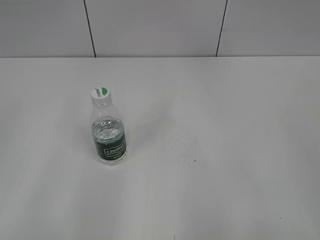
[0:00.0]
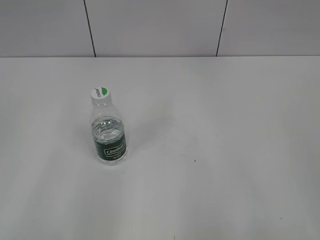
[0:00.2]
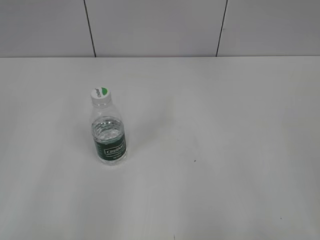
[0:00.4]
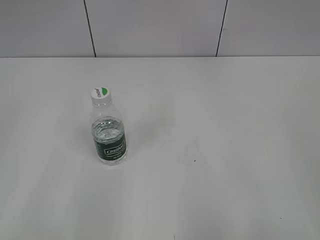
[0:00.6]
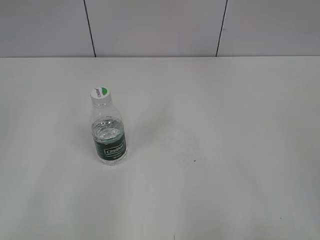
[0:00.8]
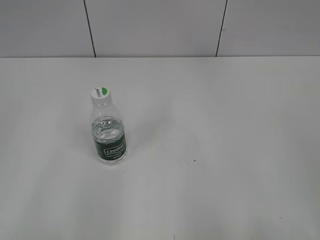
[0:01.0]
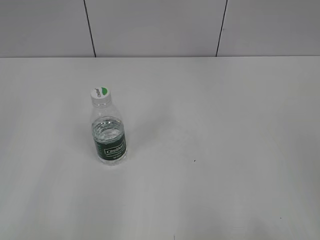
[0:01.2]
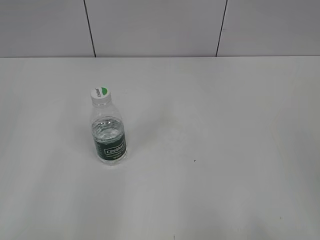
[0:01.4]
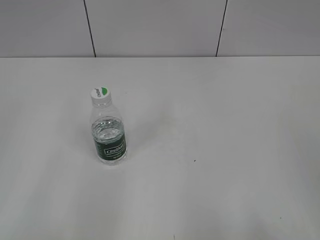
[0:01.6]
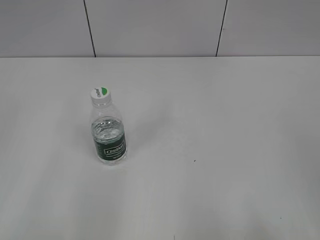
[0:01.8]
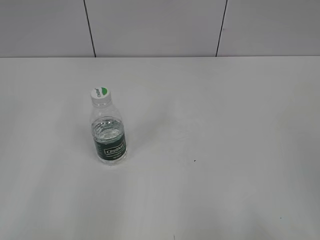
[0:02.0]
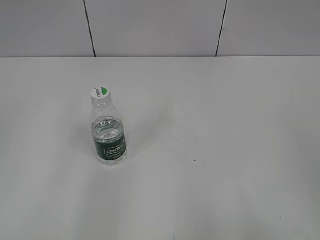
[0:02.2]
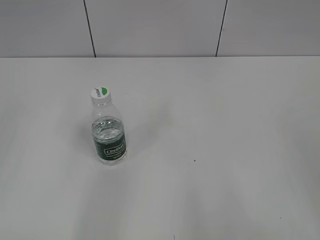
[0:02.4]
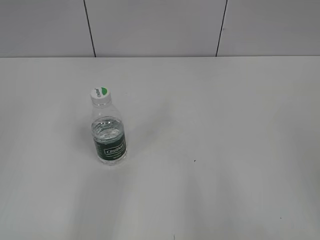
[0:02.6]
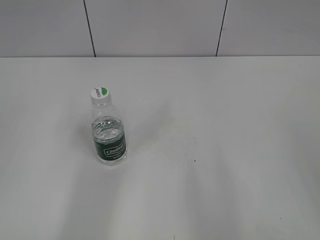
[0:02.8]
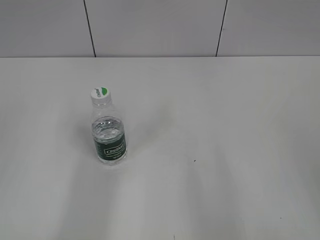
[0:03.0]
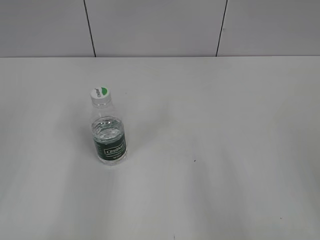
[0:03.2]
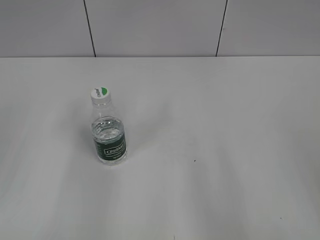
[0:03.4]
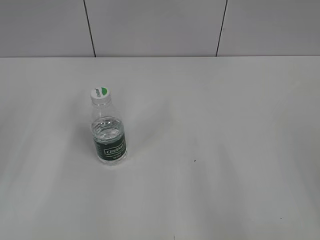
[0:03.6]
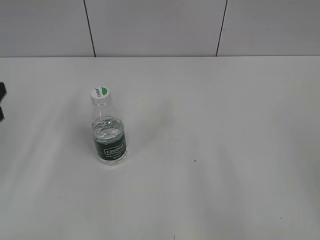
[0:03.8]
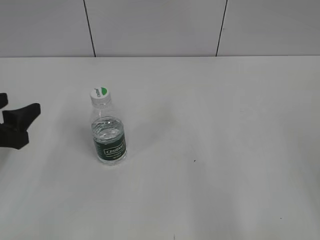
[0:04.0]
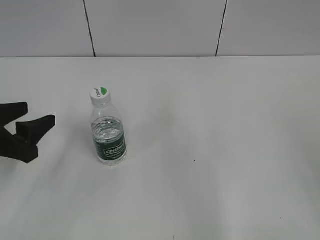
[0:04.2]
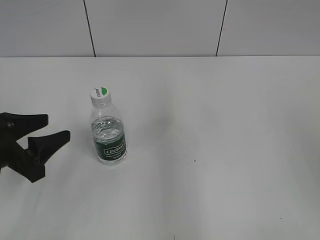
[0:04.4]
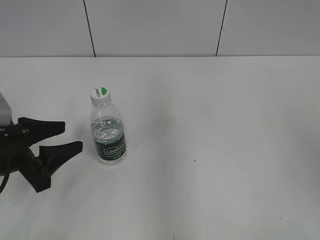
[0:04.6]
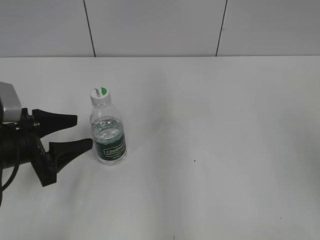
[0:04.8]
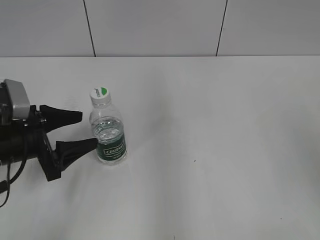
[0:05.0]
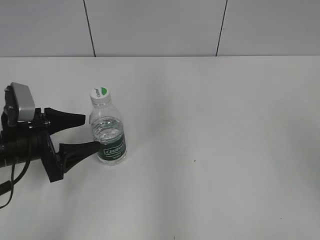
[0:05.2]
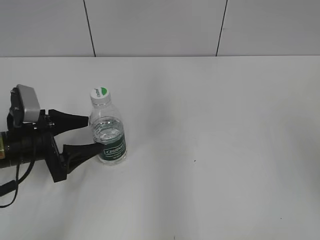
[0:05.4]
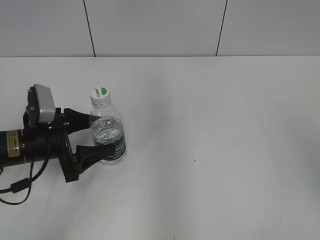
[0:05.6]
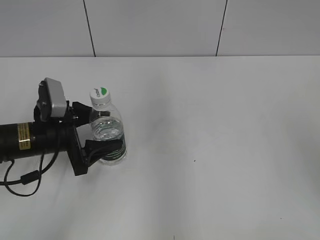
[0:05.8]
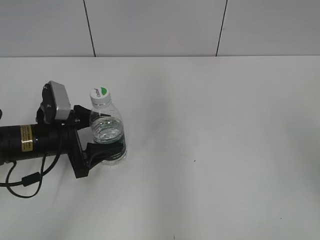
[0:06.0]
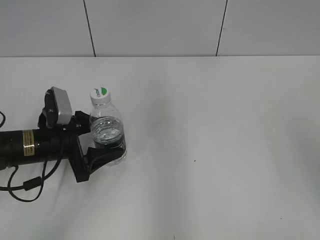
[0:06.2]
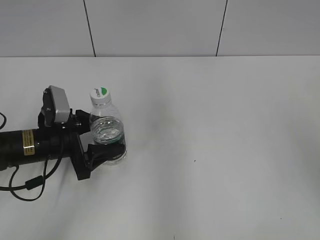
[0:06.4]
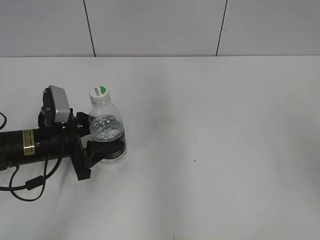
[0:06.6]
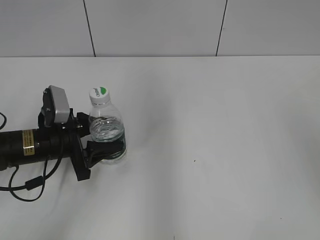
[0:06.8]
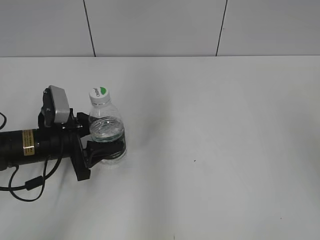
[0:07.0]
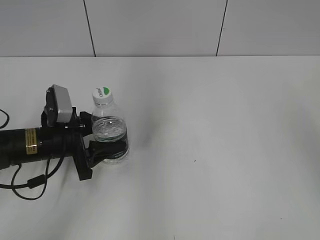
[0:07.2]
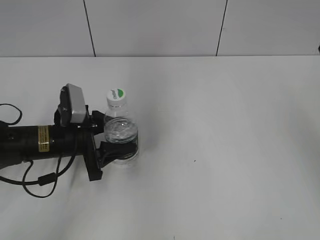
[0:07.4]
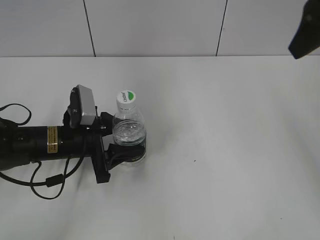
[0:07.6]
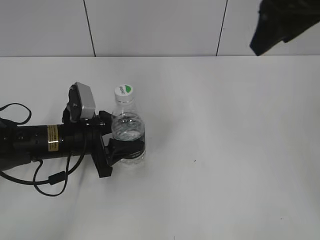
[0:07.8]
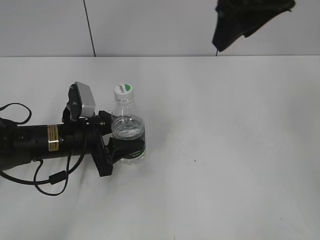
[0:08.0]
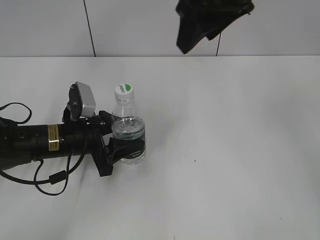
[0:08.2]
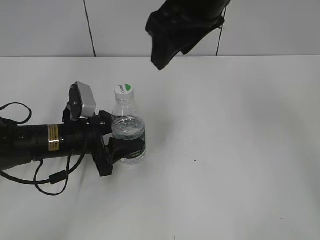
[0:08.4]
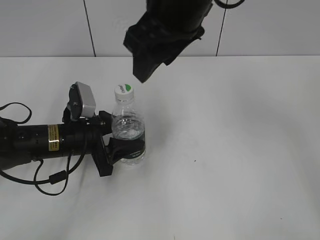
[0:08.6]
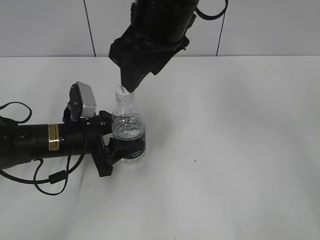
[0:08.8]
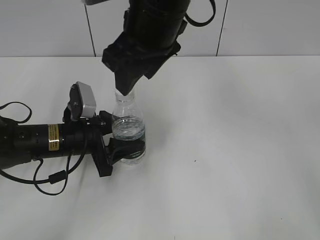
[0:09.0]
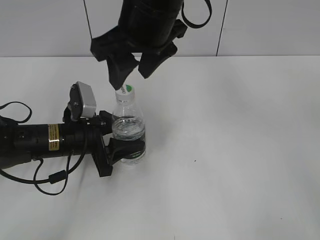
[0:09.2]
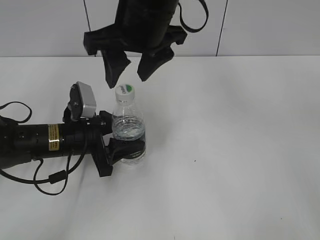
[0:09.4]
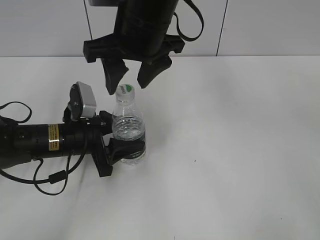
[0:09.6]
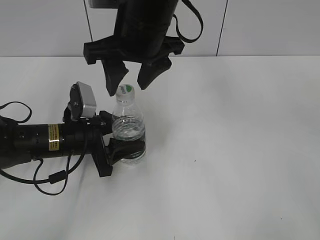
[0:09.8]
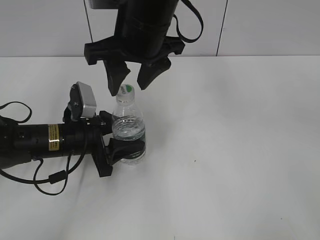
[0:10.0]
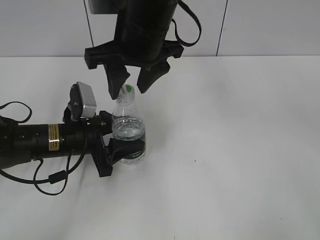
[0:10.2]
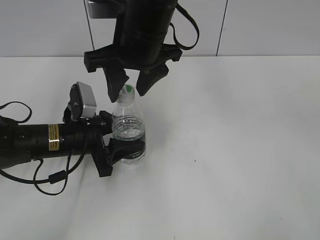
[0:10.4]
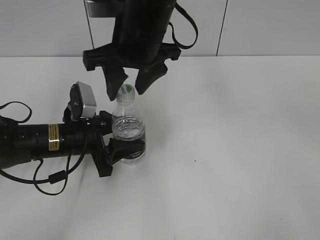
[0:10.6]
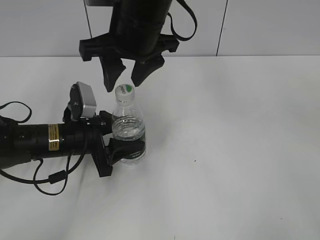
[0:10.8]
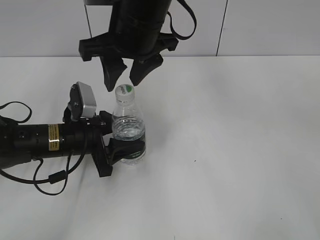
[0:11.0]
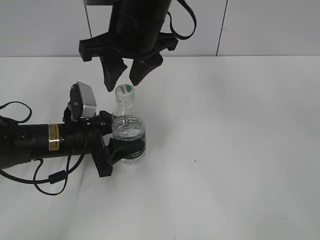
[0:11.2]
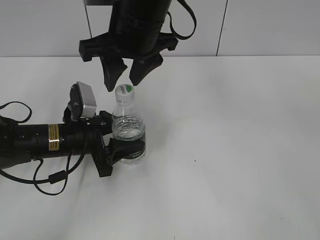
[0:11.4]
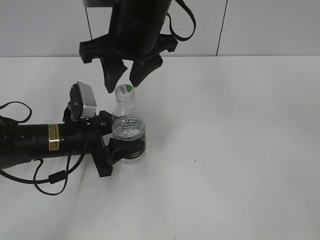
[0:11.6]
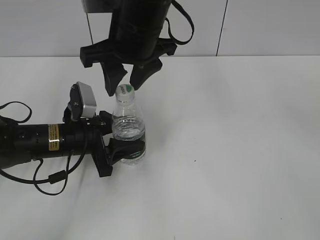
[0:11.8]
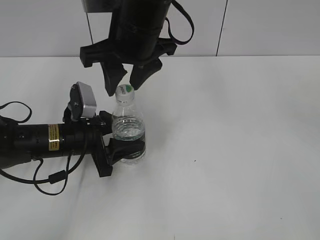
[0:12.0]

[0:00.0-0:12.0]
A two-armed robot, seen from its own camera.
Step, 0:00.0 to 0:06.8: Grasp the bottle and move it to the center of the table with the left gripper.
Step, 0:07.0 to 0:08.0: Lift the bottle and move it to the center of the table with the left gripper.
0:03.0 to 0:04.4: The left gripper heads downward and forward, covering roughly 20 cm. The right gripper goes roughly 10 cm forward.
0:04.4 to 0:06.0: The left gripper goes some 10 cm forward and to the right, and opens its fingers.
0:06.0 to 0:07.6: The right gripper moves forward and to the left, approximately 10 cm. The left gripper closes.
0:07.6 to 0:09.0: The right gripper travels to the left by roughly 20 cm.
0:10.4 to 0:12.0: Neither gripper changes place.

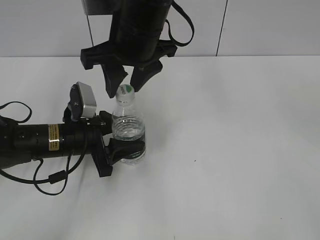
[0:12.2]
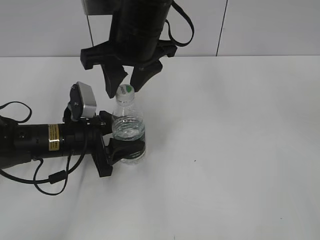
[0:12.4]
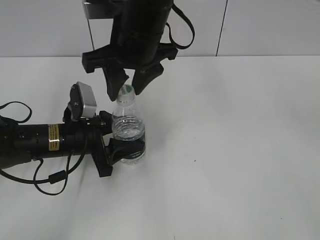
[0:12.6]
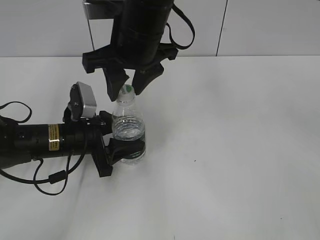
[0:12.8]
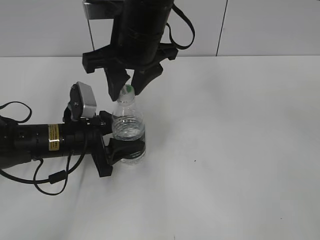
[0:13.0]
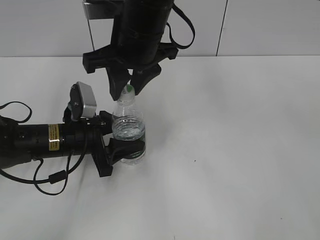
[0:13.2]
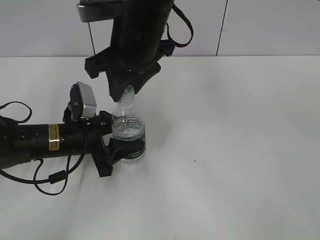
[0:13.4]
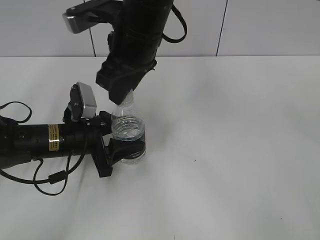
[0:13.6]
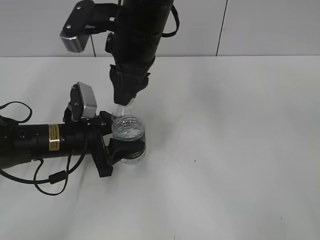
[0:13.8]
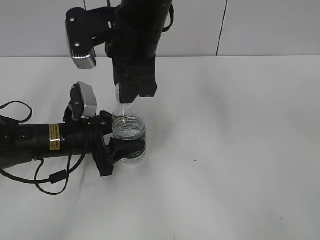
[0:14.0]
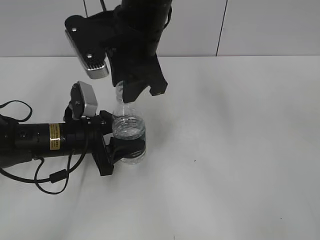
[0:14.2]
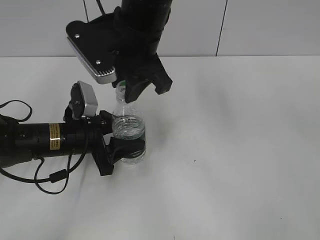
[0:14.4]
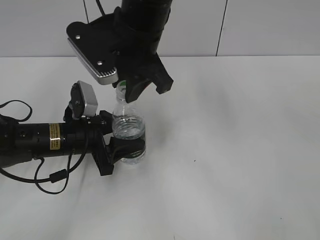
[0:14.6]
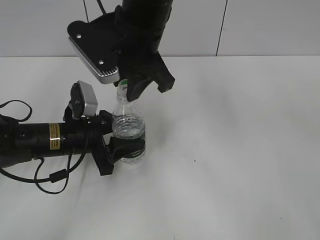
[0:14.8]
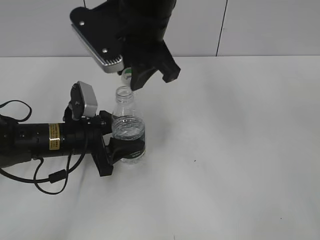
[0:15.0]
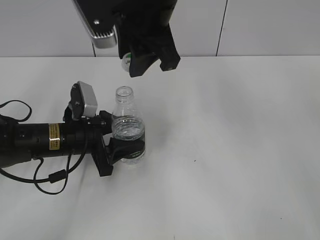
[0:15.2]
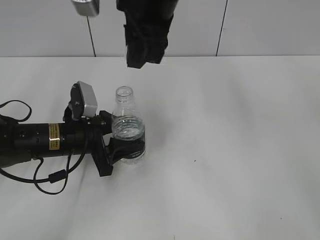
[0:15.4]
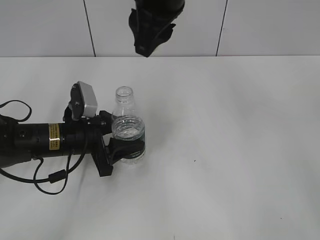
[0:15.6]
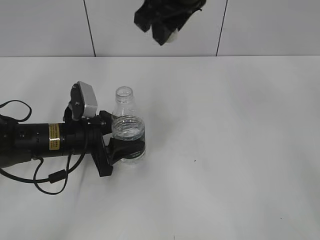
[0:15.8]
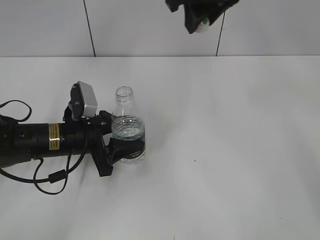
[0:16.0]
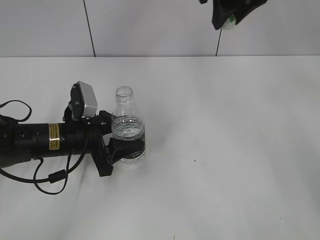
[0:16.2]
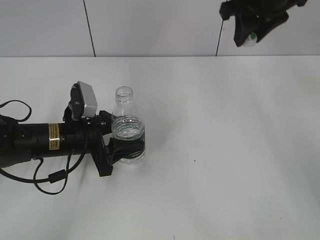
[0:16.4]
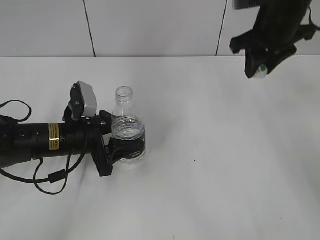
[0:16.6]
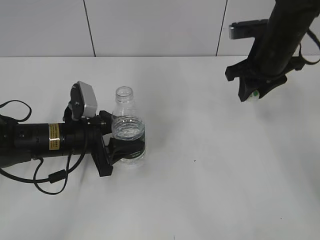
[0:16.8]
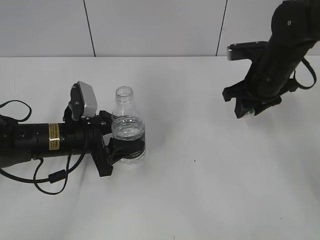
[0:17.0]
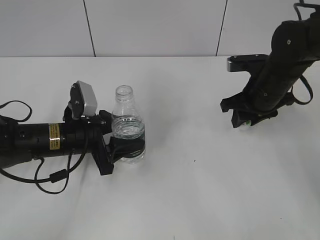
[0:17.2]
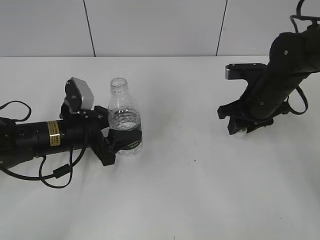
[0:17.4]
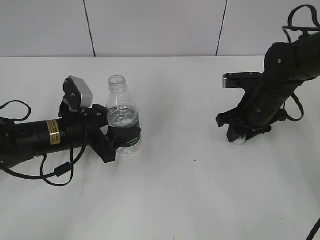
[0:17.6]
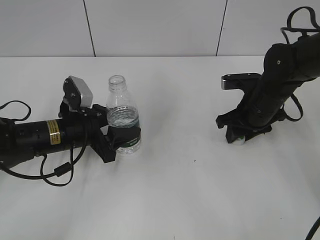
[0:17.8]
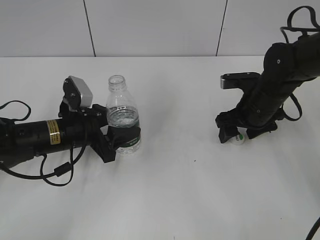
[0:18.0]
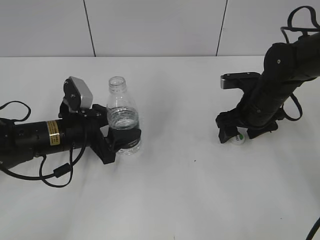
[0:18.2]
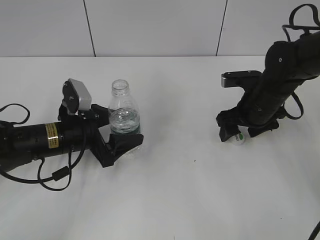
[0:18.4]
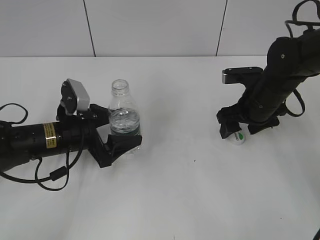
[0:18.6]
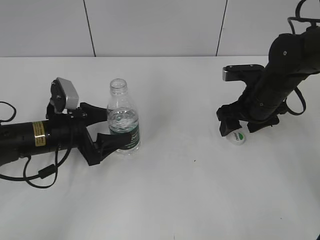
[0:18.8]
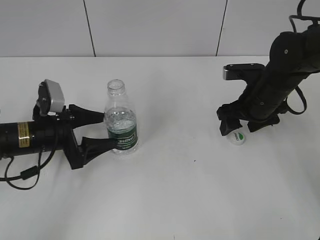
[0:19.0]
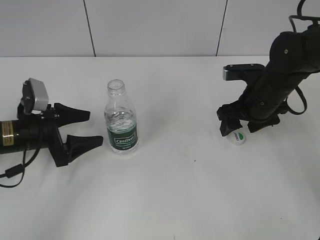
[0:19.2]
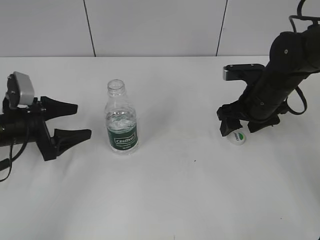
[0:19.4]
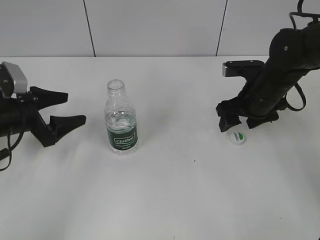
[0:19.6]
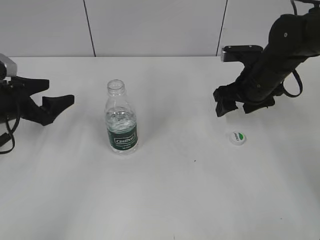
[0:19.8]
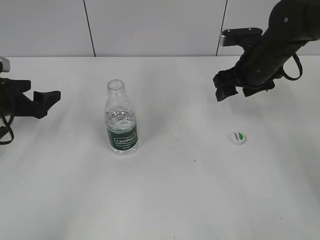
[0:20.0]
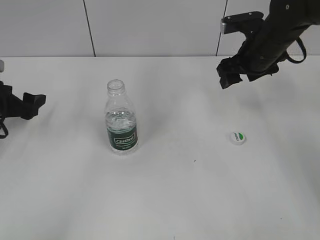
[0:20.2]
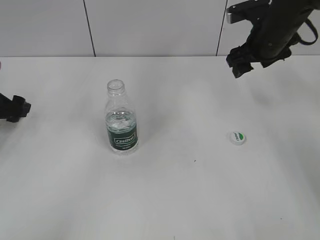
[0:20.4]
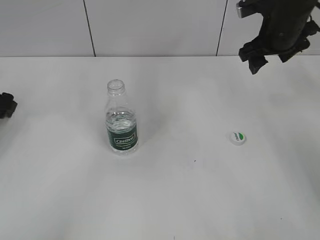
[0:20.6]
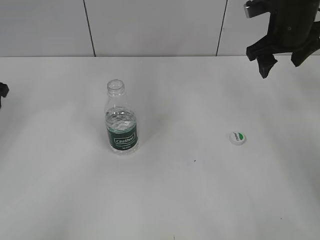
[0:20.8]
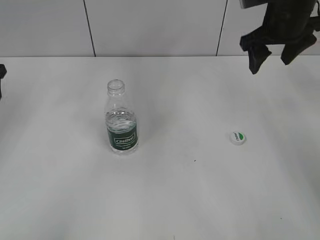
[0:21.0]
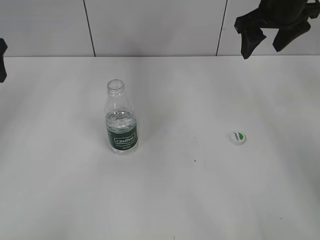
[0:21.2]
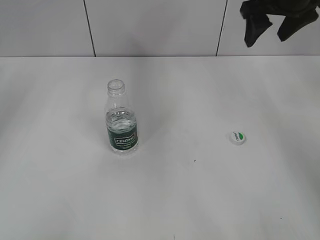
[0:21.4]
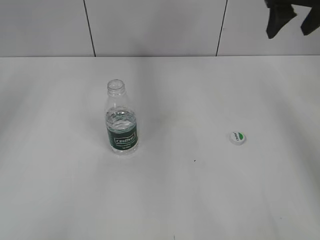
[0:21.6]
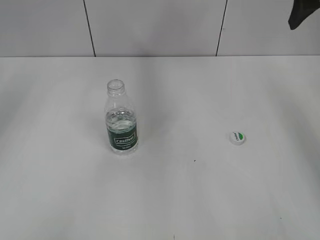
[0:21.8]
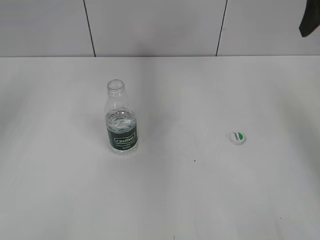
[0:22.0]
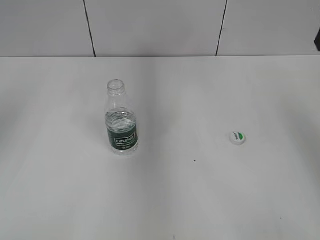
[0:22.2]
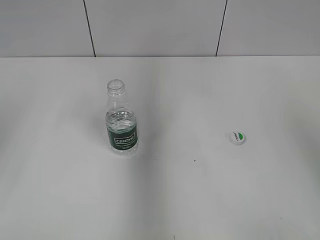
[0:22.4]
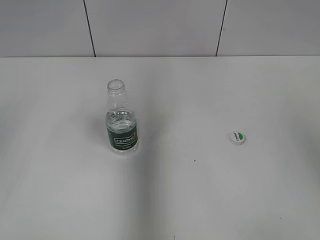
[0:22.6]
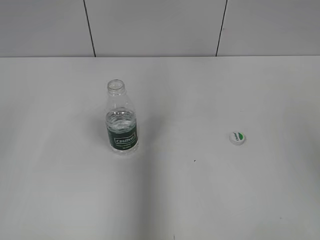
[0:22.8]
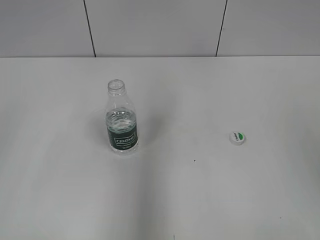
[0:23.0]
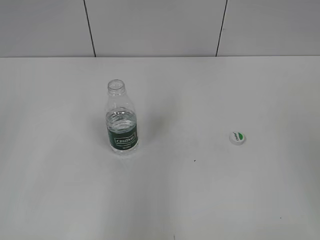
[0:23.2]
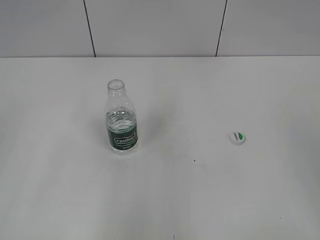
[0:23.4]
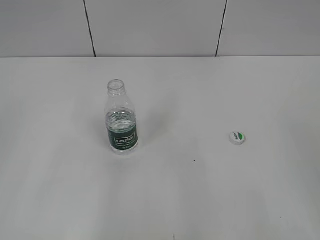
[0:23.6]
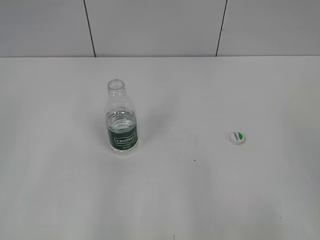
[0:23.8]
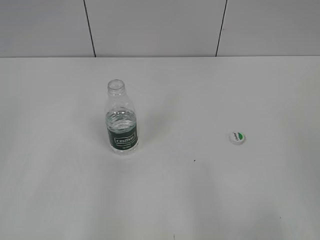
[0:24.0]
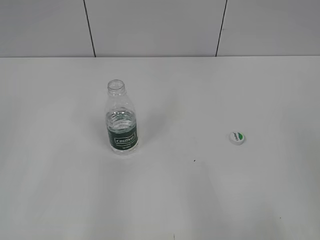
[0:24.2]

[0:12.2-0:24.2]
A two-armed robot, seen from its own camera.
Step, 0:12.2 to 0:15.0: Unscrew the bottle cap with the right gripper while holding the bottle with the left gripper.
Step, 0:15.4 to 0:18.2: Place the bottle cap on the table with the right gripper.
Step, 0:18.4 to 0:19.2: Place the bottle on the table with the left gripper.
0:15.2 to 0:16.6: The right gripper shifts some 20 cm to the right and forward.
0:16.6 to 0:18.2: The right gripper travels downward by approximately 15 cm, and opens up.
0:18.2 to 0:19.8: The left gripper moves to the left, about 10 cm, and opens up.
0:19.8 to 0:21.2: The two grippers go roughly 15 cm upward.
0:21.2 to 0:22.6: The right gripper is displaced backward, to the right and upward by some 20 cm. Meanwhile the left gripper goes about 20 cm backward.
0:22.6 to 0:24.2: The right gripper goes approximately 20 cm backward and downward, while the left gripper shifts about 15 cm backward.
